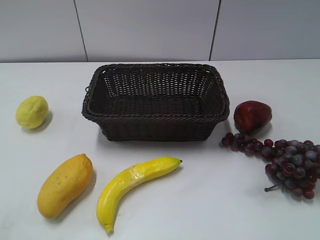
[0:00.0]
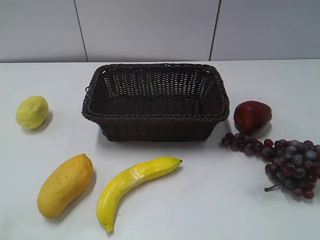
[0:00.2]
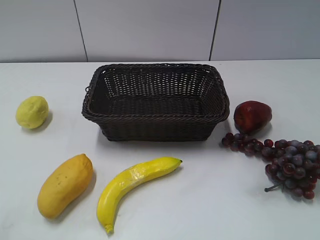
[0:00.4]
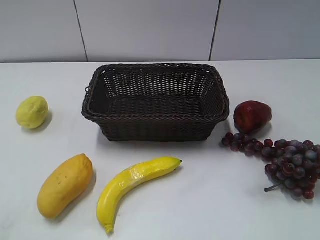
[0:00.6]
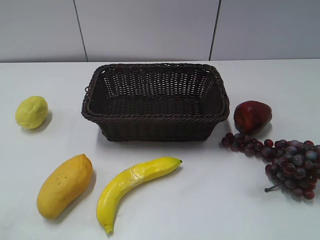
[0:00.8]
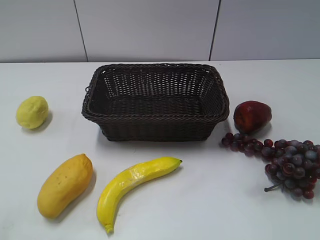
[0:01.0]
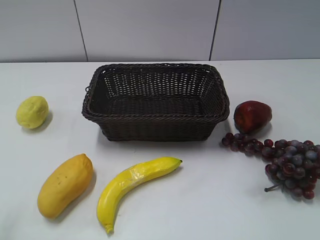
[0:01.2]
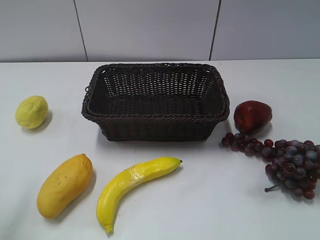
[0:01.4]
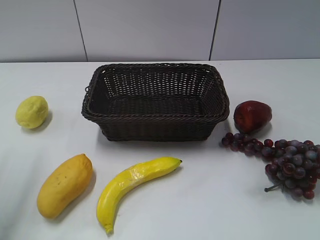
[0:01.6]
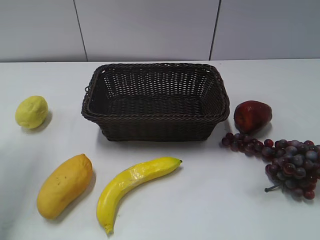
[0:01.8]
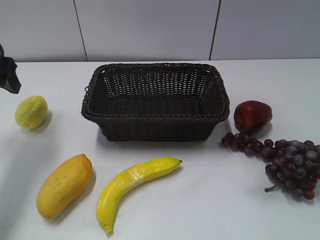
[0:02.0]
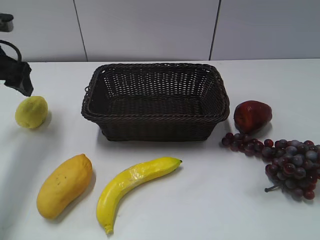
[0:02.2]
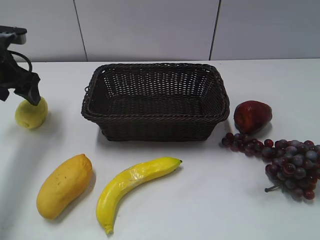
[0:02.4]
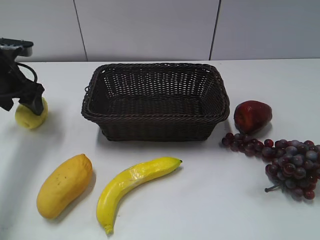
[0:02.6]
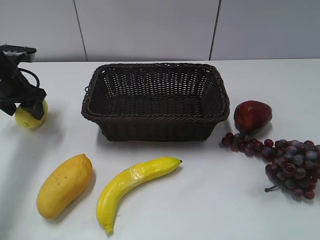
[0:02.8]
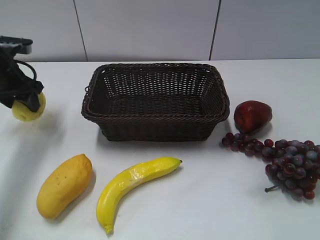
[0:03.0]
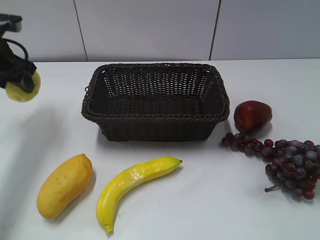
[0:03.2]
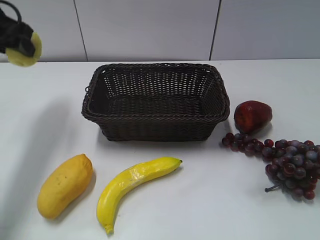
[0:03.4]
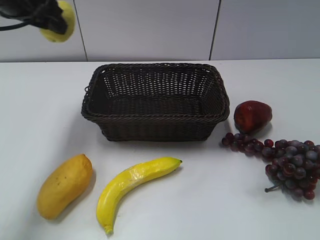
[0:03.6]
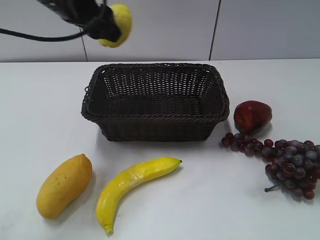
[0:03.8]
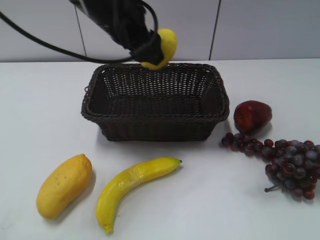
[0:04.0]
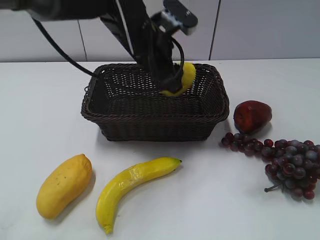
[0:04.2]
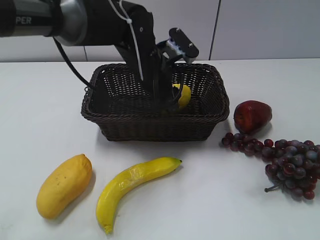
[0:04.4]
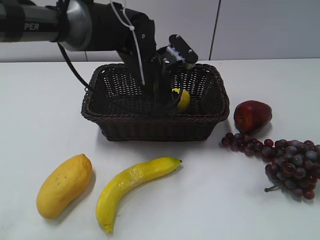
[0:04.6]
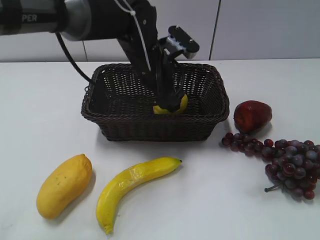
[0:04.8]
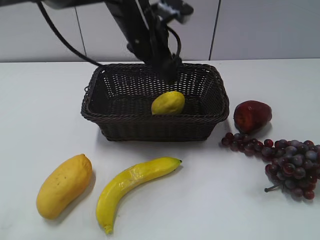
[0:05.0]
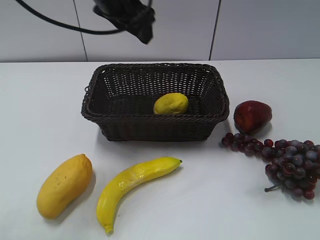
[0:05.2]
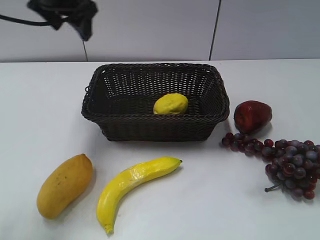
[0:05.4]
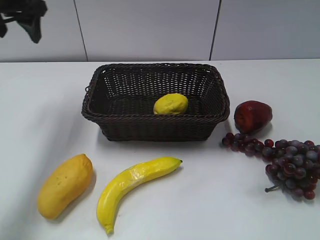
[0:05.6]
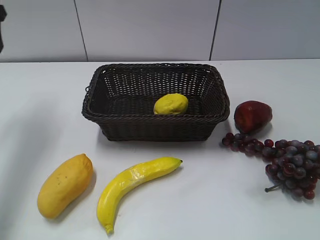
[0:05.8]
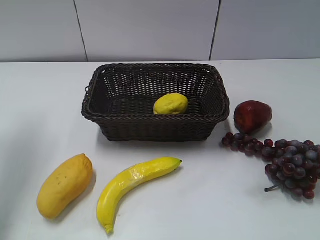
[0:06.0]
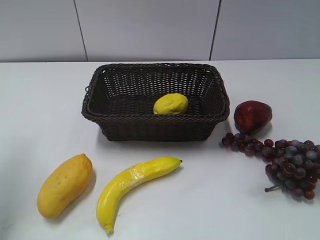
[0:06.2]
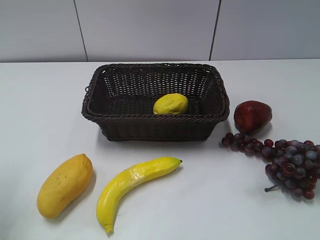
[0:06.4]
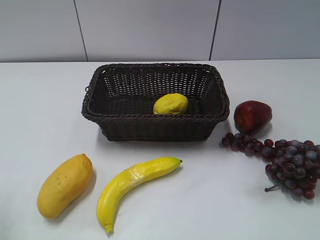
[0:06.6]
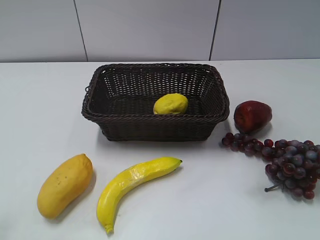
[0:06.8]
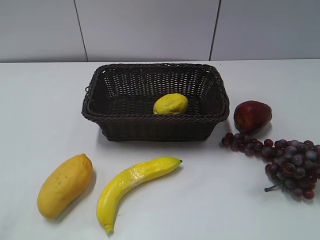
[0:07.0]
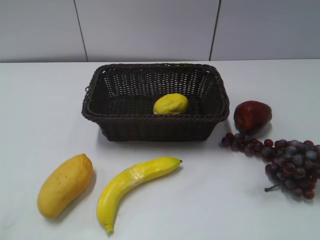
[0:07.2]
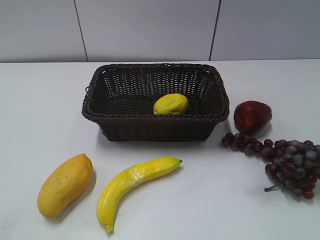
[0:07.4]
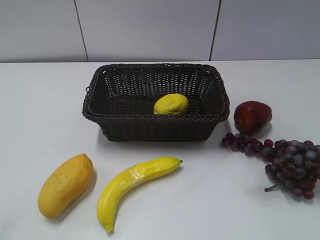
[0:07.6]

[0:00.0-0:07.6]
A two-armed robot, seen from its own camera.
Step, 0:02.0 to 0:03.0: Grasp the lemon with left gripper.
Step, 0:03.2 to 0:04.6: Place the lemon in the basket with left gripper.
0:01.6 to 0:03.0: The left gripper travels forward and downward by approximately 25 cm, and opens and closes again.
0:03.0 to 0:04.6: The left gripper goes roughly 30 cm to the right.
0:04.6 to 0:06.0: The left gripper heads to the left and upward, covering roughly 35 cm, and opens up.
0:06.0 to 0:07.6: The left gripper shifts approximately 35 cm backward, and closes.
